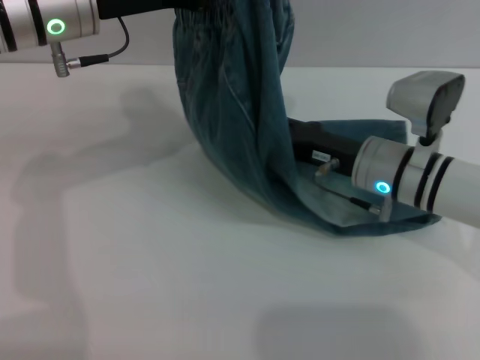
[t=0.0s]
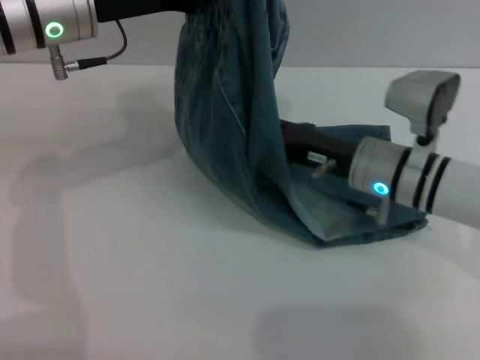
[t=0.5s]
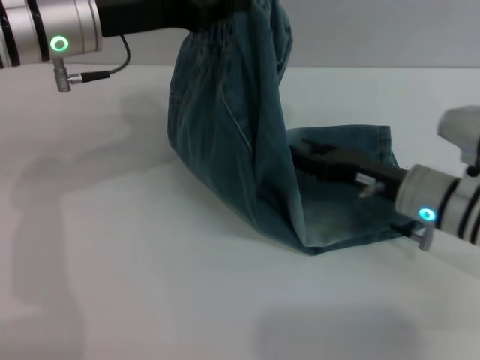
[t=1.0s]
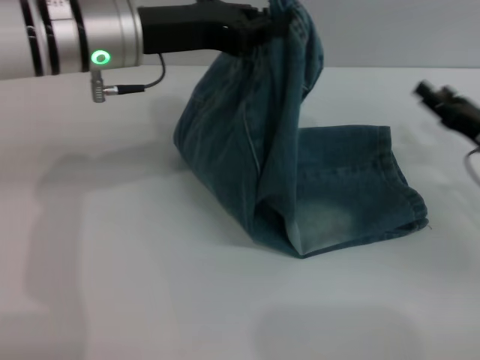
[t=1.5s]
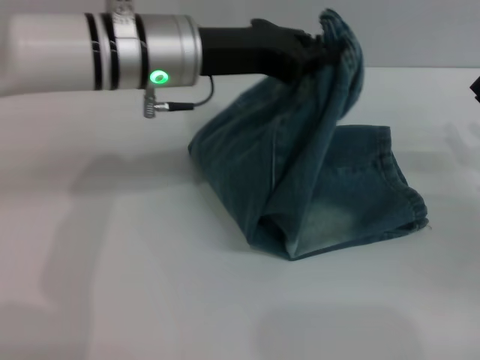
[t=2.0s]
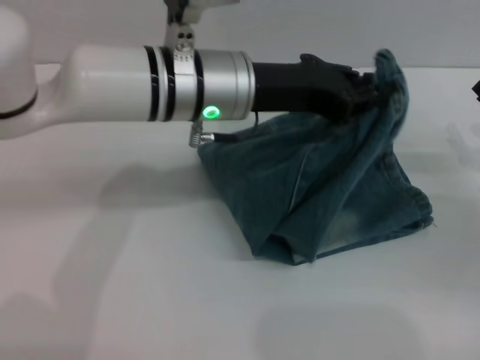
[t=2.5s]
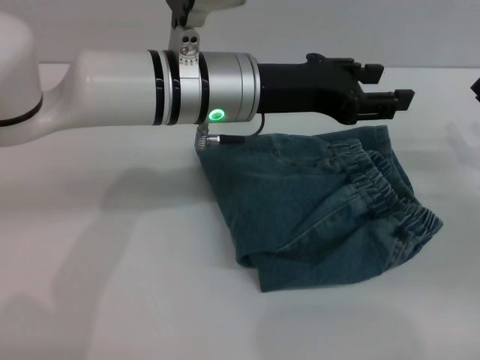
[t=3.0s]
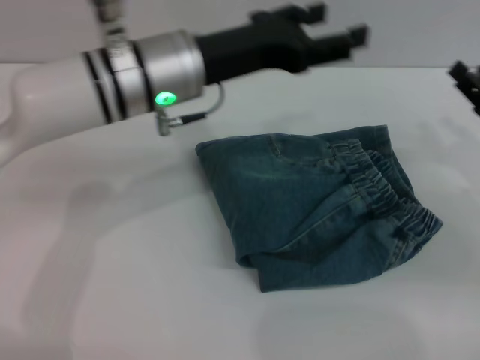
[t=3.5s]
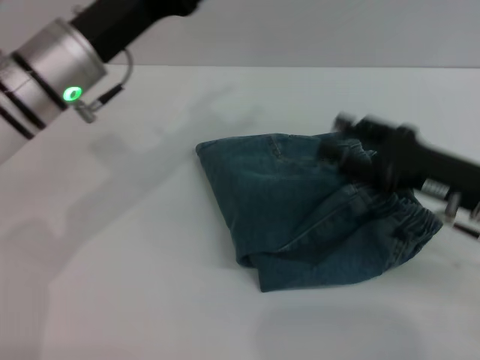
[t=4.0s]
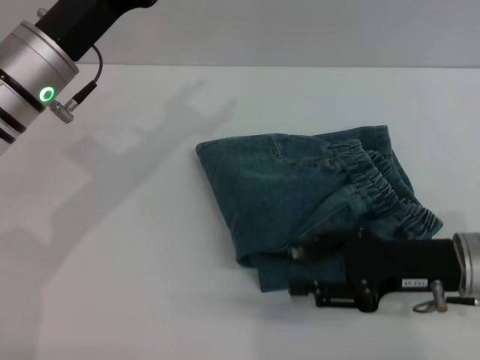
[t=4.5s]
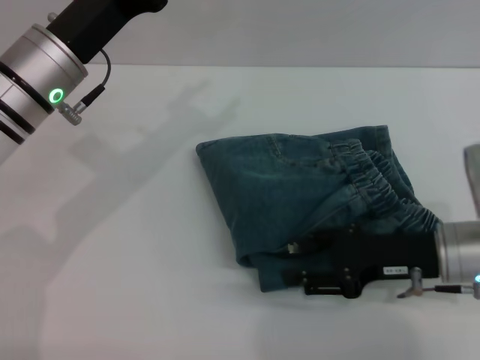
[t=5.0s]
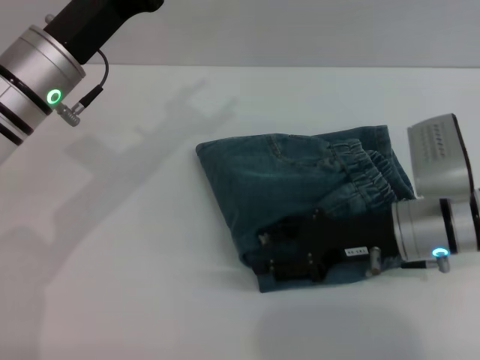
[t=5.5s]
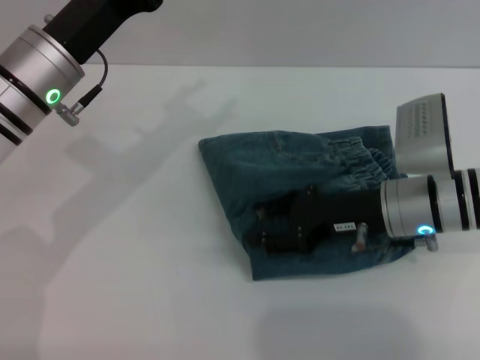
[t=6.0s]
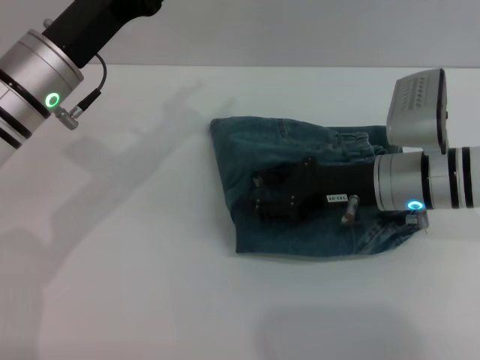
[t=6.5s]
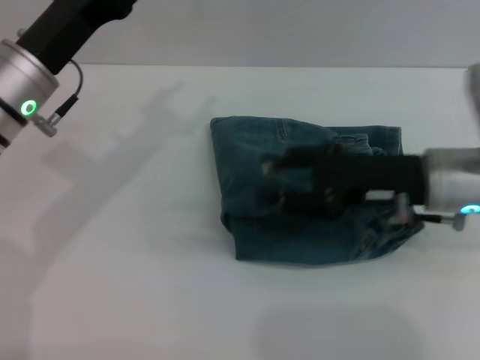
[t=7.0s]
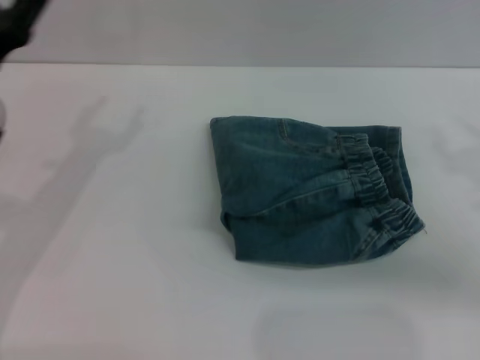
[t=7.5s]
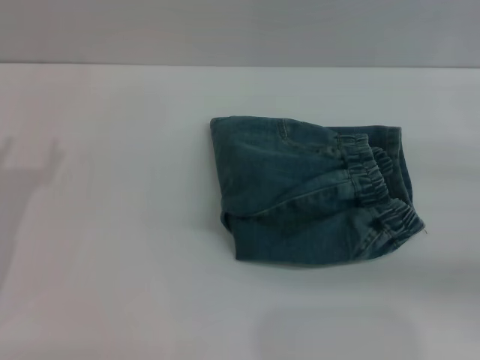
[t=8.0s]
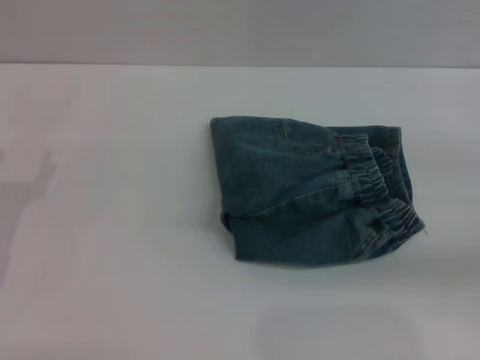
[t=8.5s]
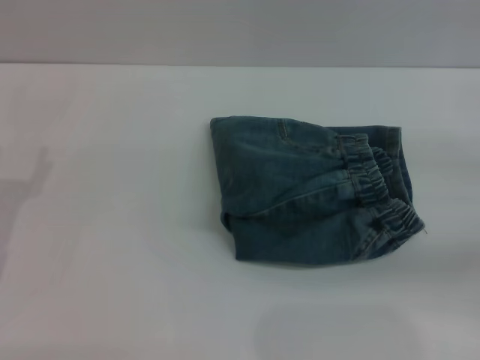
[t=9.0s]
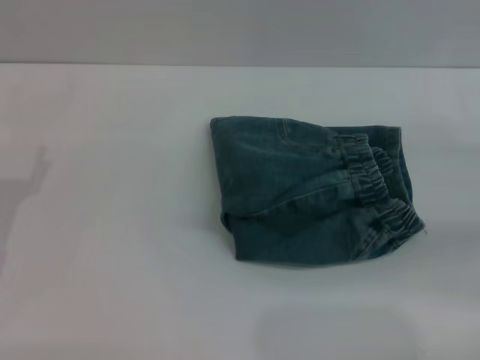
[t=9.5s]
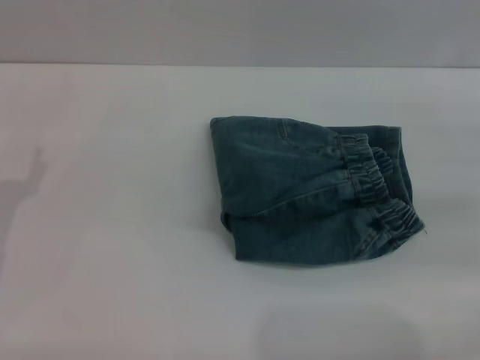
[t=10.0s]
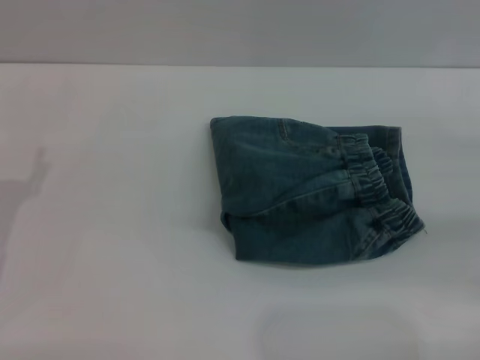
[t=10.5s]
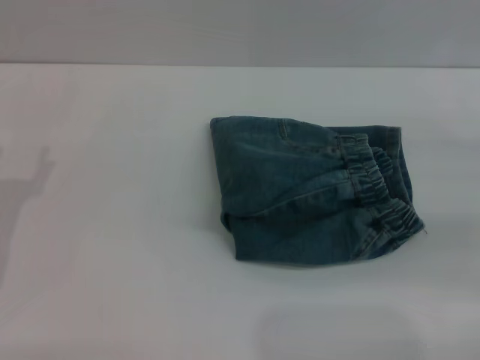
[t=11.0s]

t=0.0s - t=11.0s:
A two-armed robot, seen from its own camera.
Step, t=0.0s - t=2.5s: Fold the pants from left to right with the left gripper.
t=0.0s - t=2.0s: The right gripper travels to the right by roughly 20 cm, while the left gripper is displaced to the right by about 10 cm.
t=2.0s - t=3.5s: The left gripper opens up.
t=3.5s - t=5.5s: The two grippers go some 10 cm to the left.
t=5.5s - t=7.5s: The right gripper goes some 15 cm to the right, while the left gripper moves to the left, some 10 cm.
t=7.5s - t=9.0s: The left gripper is displaced backward, downward and to the left by about 10 cm.
